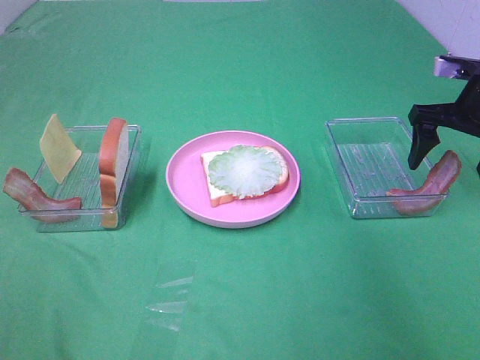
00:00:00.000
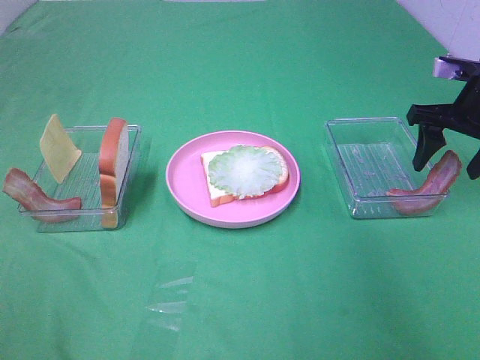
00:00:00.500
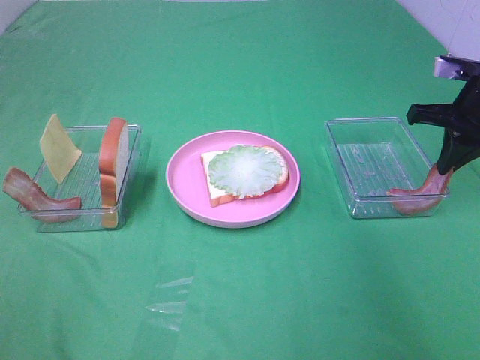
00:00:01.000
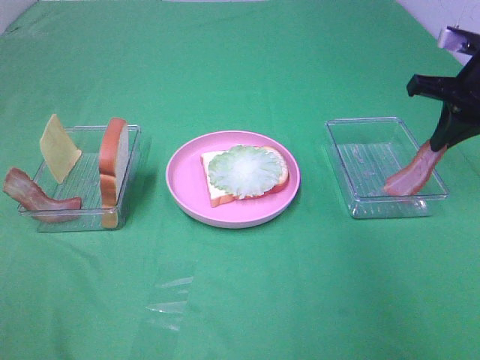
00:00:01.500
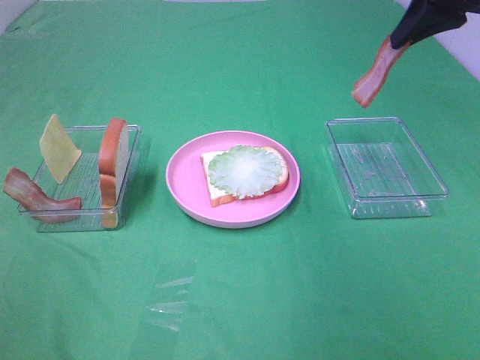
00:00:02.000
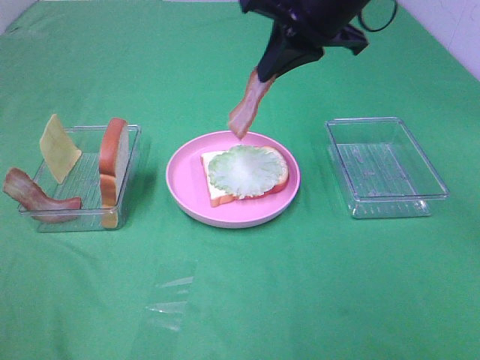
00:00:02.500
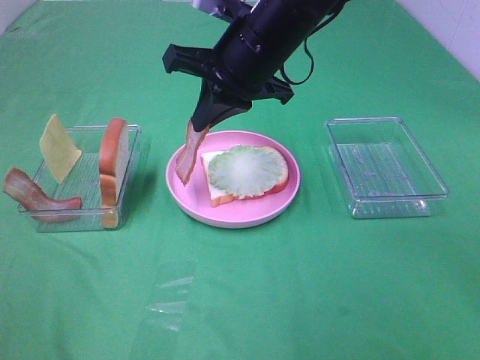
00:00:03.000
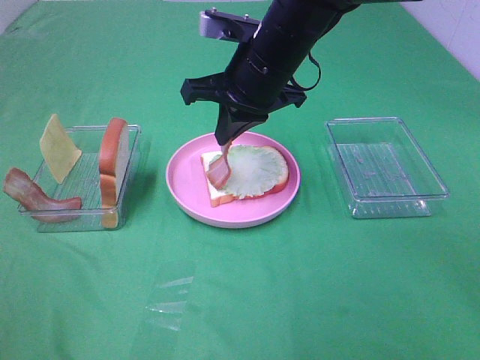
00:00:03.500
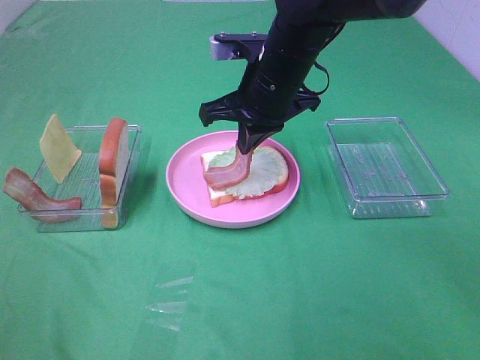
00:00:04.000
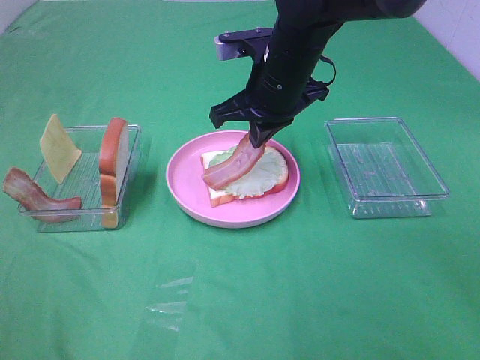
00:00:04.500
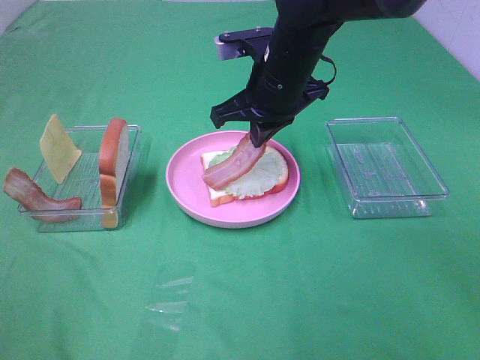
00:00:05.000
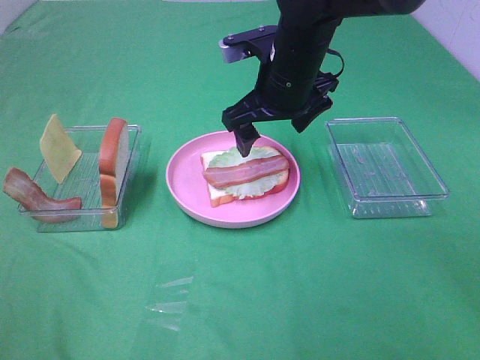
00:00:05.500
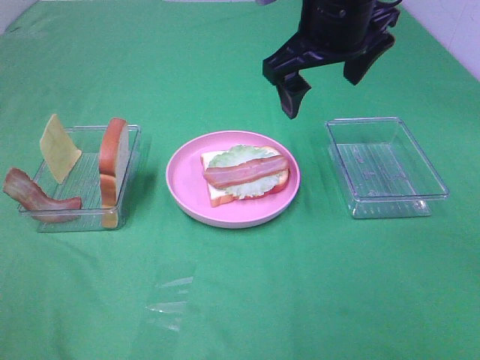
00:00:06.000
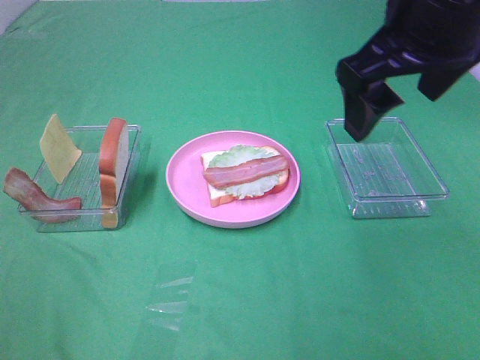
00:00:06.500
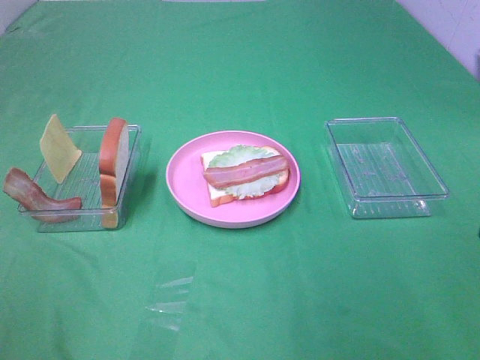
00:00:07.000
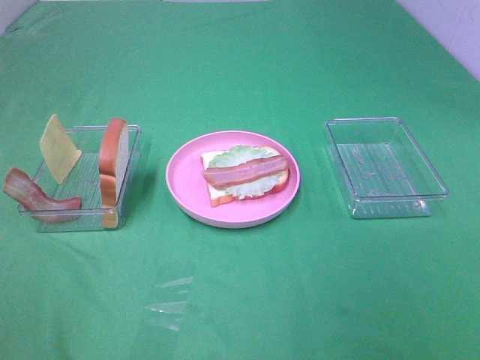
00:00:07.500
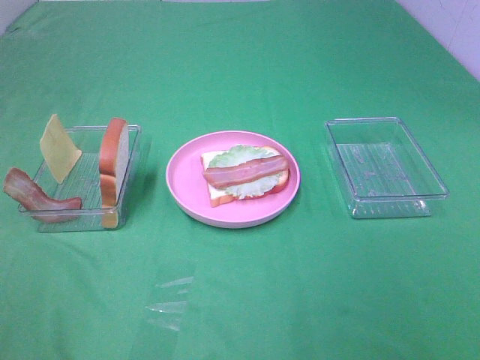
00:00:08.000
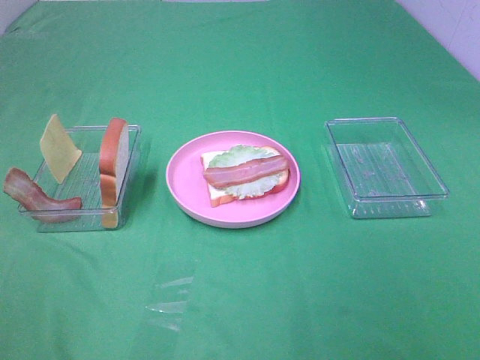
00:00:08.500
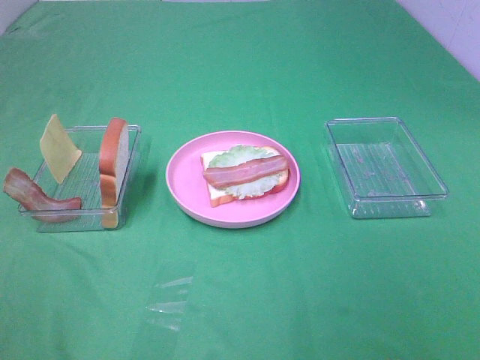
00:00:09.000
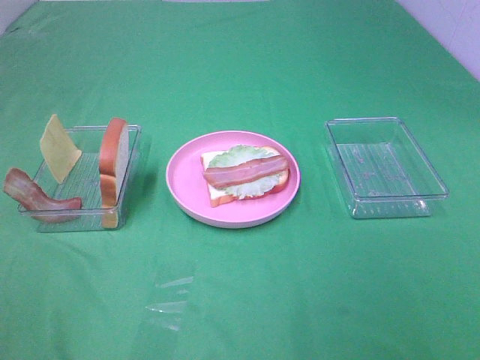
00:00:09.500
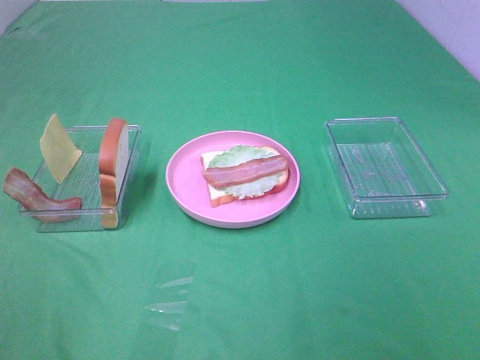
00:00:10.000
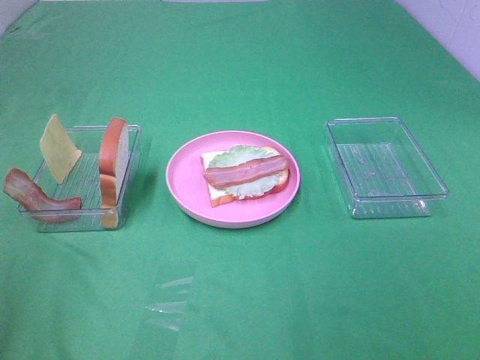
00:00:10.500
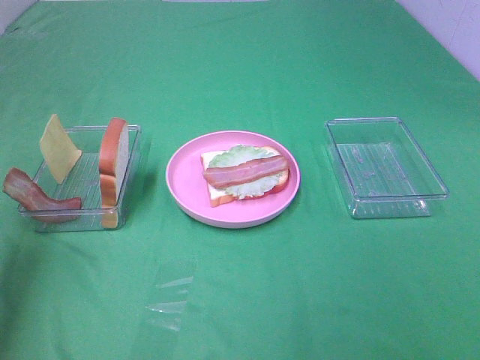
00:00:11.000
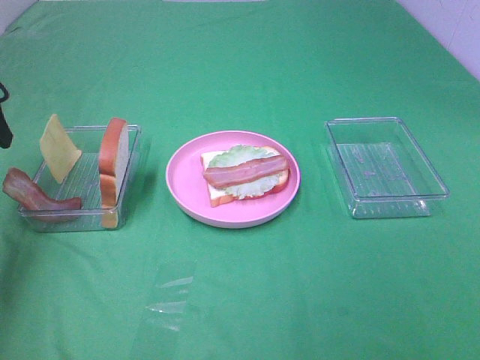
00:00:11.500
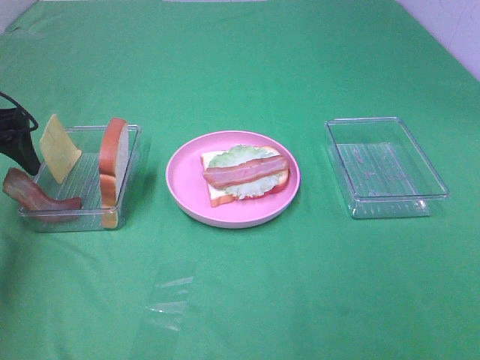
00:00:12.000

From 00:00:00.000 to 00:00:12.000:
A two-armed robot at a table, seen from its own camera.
Task of the whole recording: Make sandwiches.
Step, from 00:00:01.500 to 00:00:05.000: Right hand:place bacon on lettuce slice.
From 00:00:00.000 to 00:00:02.000: The right gripper heads upward and to the left, covering roughly 15 cm, and closes its fingers.
From 00:00:02.000 to 00:00:04.000: The right gripper shifts approximately 25 cm to the left and downward.
From 00:00:04.000 to 00:00:06.000: The right gripper shifts approximately 10 cm upward, and opens.
From 00:00:06.000 to 00:00:08.000: The right gripper heads backward and to the right, covering about 40 cm.
From 00:00:08.000 to 00:00:10.000: Neither gripper changes place.
From 00:00:10.000 to 00:00:12.000: The left gripper moves forward, about 35 cm.

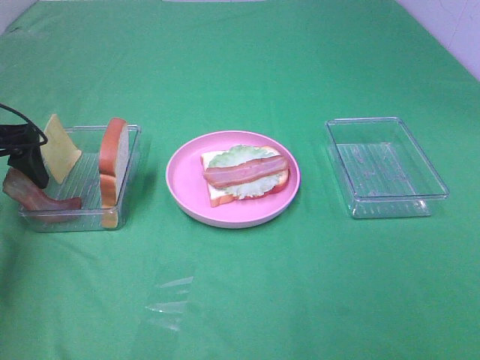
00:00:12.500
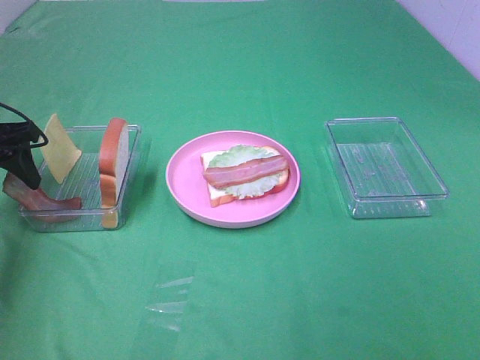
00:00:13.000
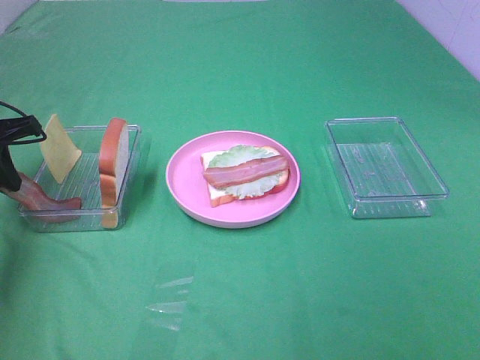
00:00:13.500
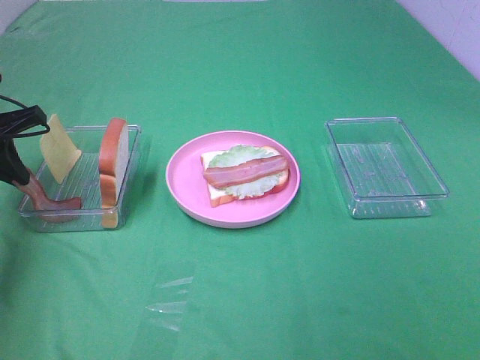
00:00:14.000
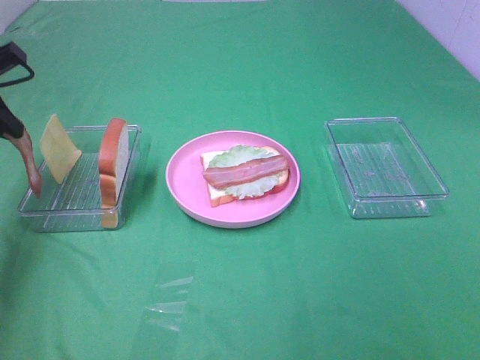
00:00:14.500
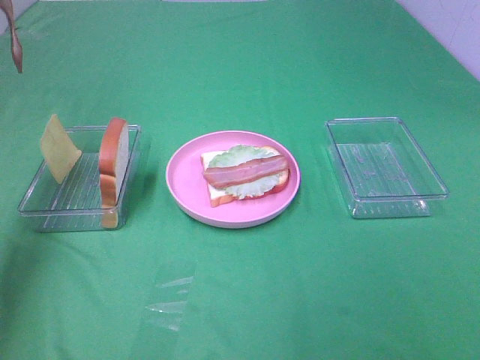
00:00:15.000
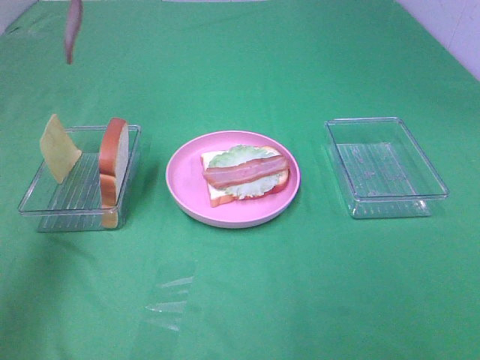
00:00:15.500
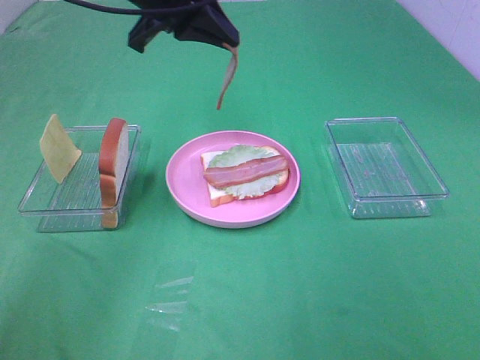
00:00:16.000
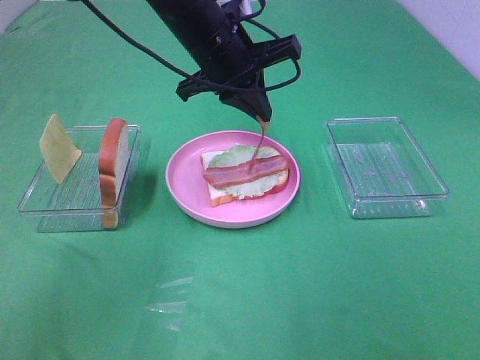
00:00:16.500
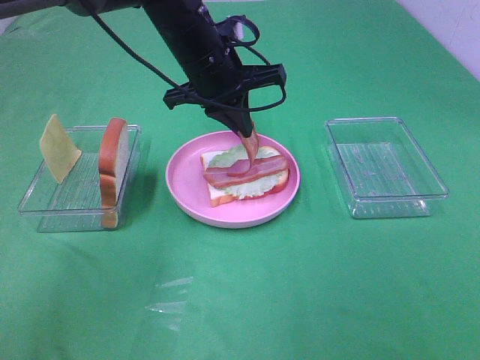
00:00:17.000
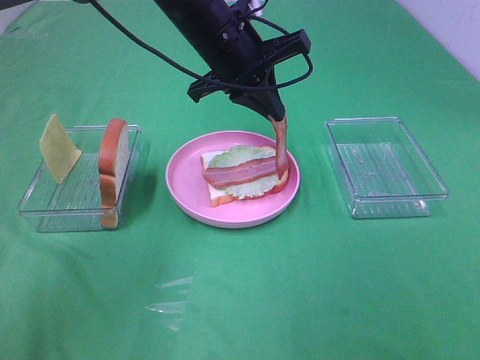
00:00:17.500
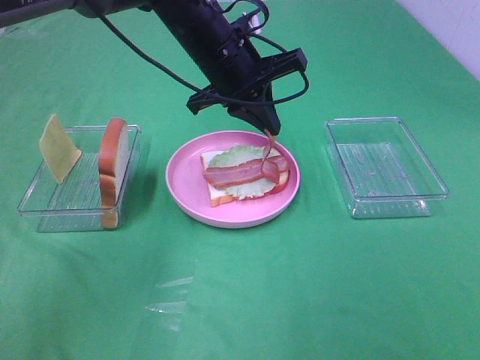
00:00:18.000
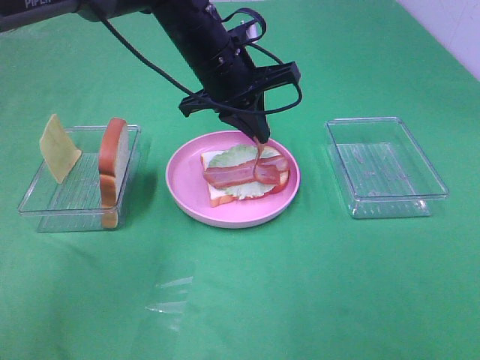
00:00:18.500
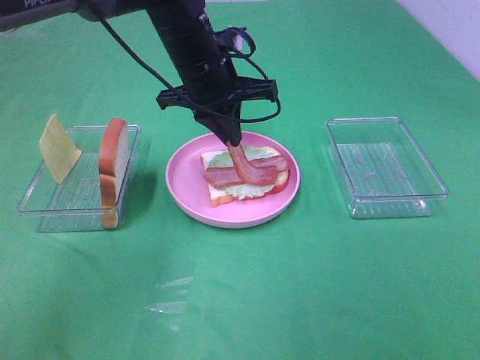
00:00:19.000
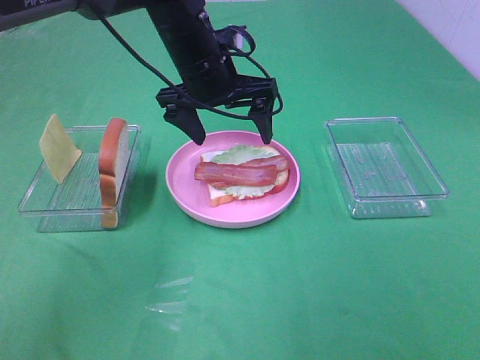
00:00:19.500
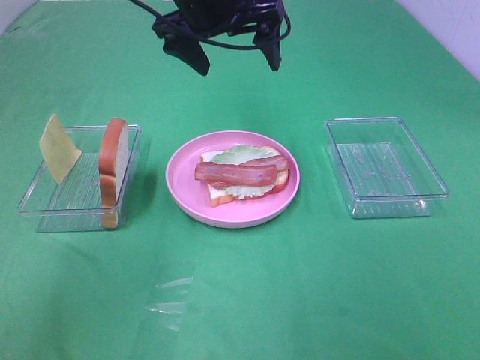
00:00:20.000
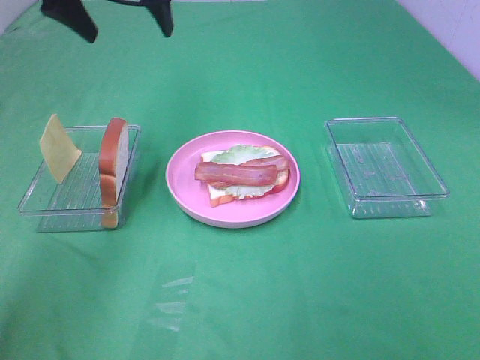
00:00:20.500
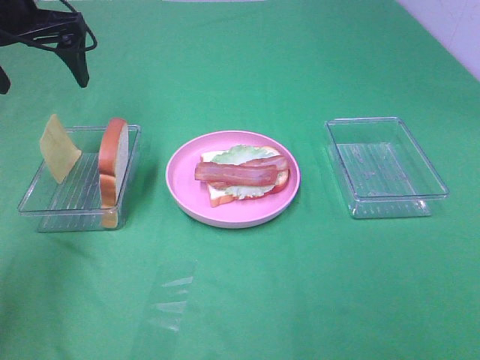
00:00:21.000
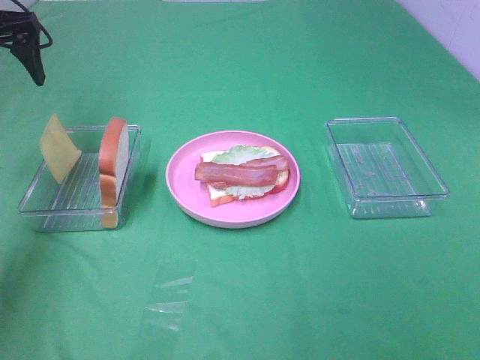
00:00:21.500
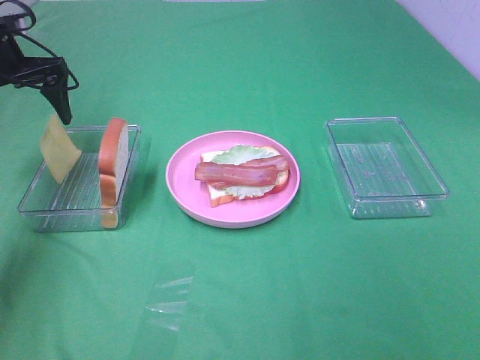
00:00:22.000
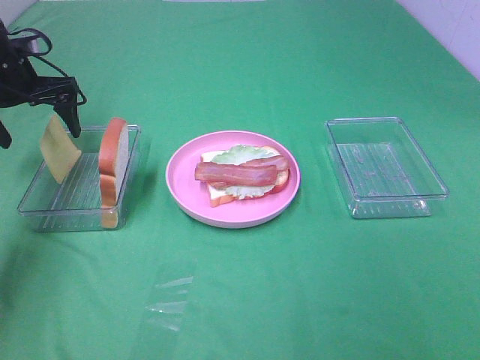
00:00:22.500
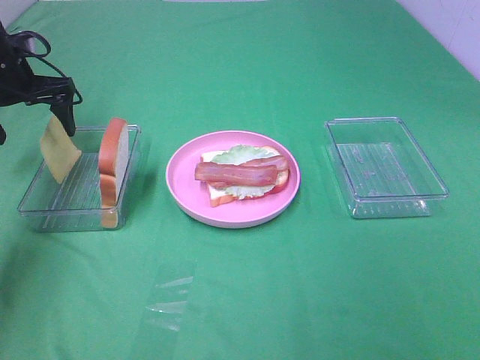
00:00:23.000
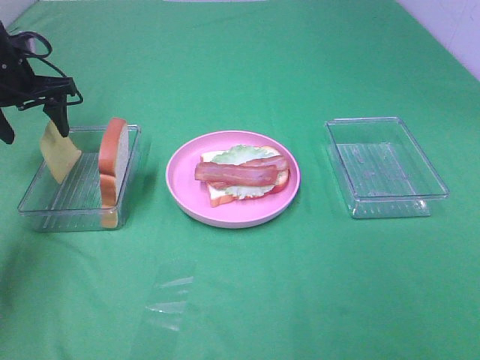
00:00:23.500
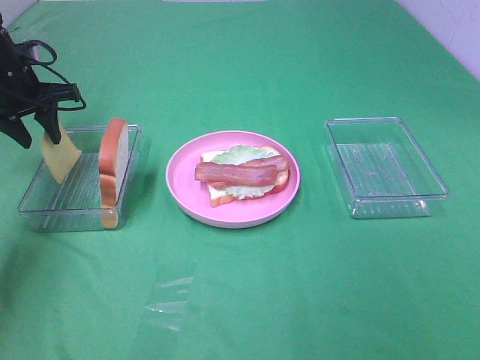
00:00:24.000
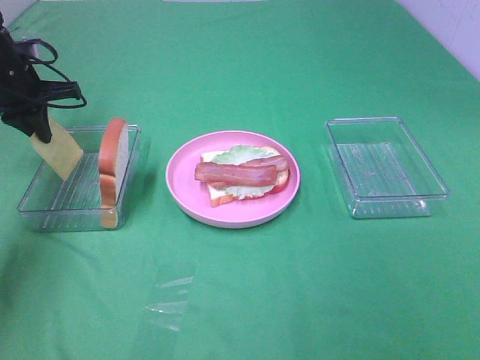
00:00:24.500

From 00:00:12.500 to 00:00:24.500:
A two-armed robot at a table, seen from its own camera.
Task of the whole recording: Make sandwiches.
Step, from 00:00:14.000 to 00:00:19.000: Left hand:place bacon on bacon.
From 00:00:12.500 to 00:00:14.500: The left gripper moves upward, roughly 10 cm, and closes its fingers.
From 00:00:14.500 to 00:00:16.500: The left gripper shifts about 30 cm to the right.
From 00:00:16.500 to 00:00:18.500: There are only small adjustments of the grippers.
From 00:00:18.500 to 00:00:20.500: The left gripper shifts approximately 20 cm to the left and upward, and opens up.
From 00:00:20.500 to 00:00:22.500: The left gripper shifts some 20 cm downward and to the left.
From 00:00:22.500 to 00:00:24.500: The left gripper closes up.

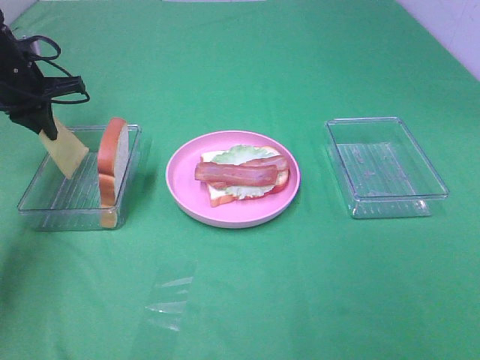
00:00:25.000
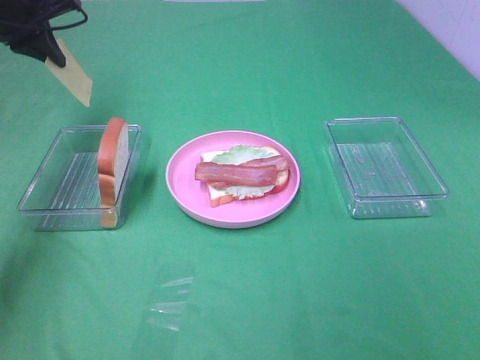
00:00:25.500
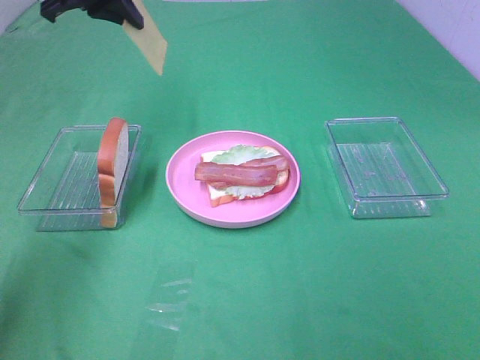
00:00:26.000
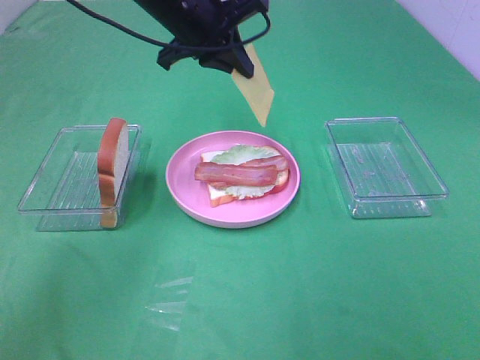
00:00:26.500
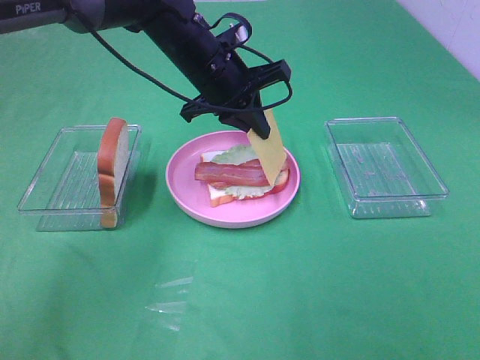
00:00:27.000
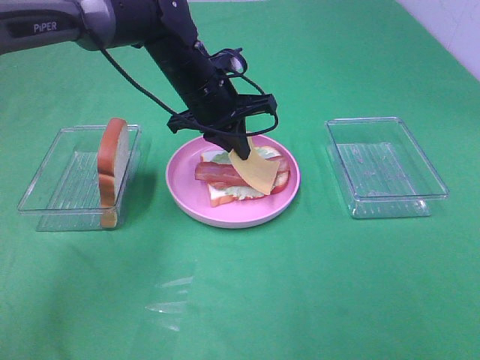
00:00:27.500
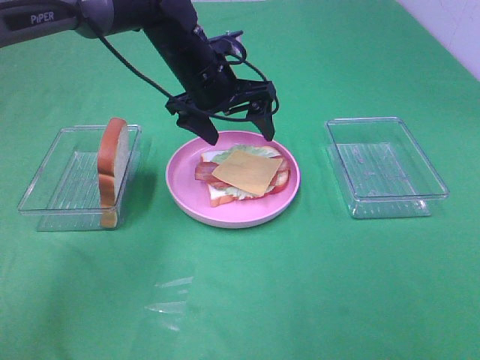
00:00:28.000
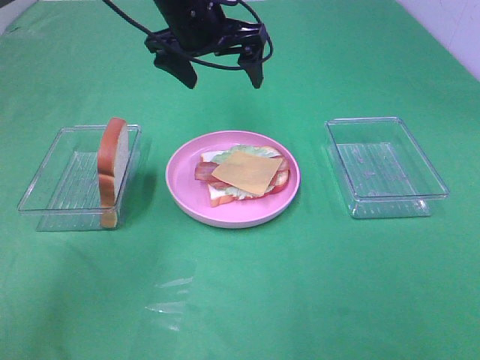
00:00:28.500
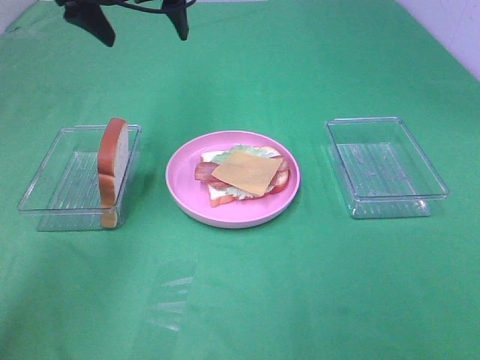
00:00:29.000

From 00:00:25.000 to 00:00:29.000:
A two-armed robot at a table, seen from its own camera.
Task of the whole recording: Make sandwiches.
Step, from 00:00:25.000 to 00:00:27.500: Left hand:place the cheese slice on top of the bacon.
From 00:00:25.000 to 00:00:27.000: The left gripper shifts approximately 25 cm to the right.
From 00:00:27.000 to 00:00:29.000: The left gripper is displaced upward and to the left by some 15 cm, and opens its fingers.
